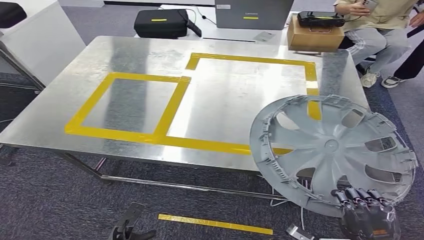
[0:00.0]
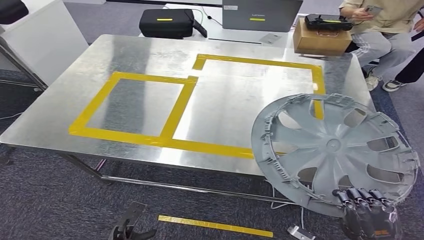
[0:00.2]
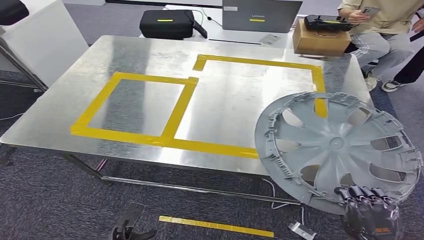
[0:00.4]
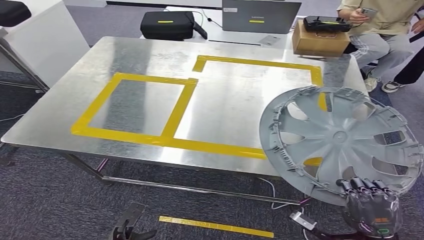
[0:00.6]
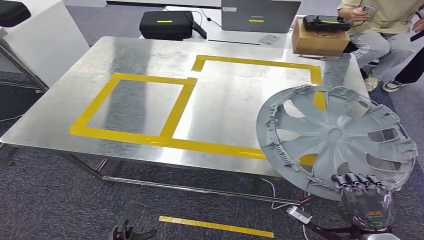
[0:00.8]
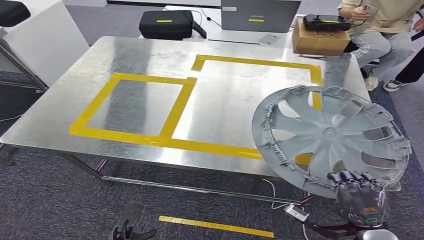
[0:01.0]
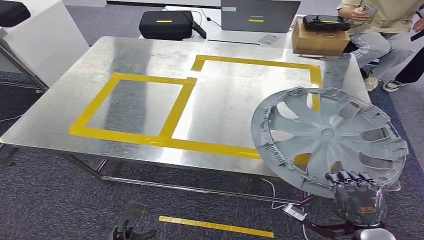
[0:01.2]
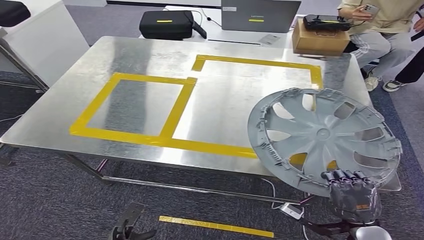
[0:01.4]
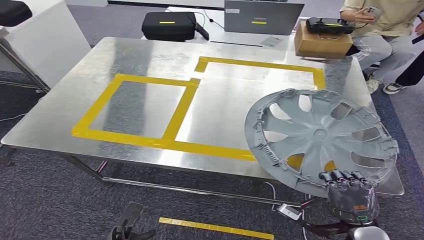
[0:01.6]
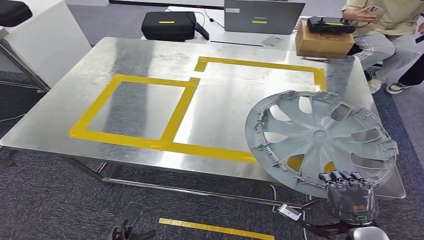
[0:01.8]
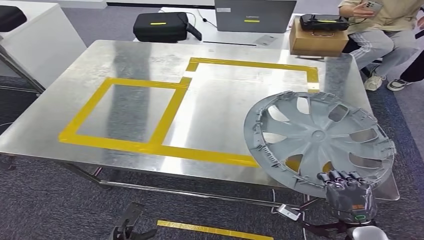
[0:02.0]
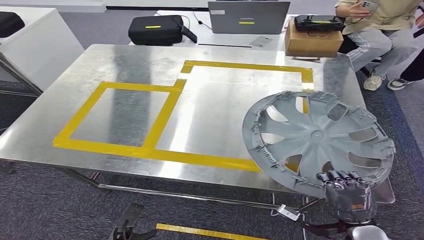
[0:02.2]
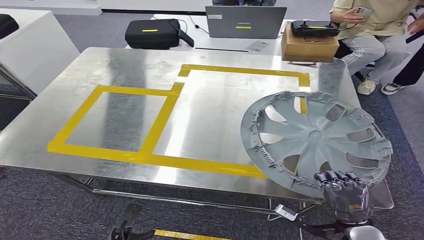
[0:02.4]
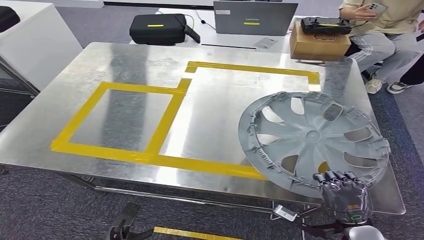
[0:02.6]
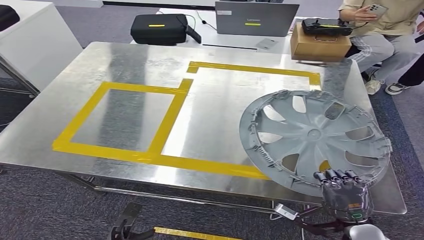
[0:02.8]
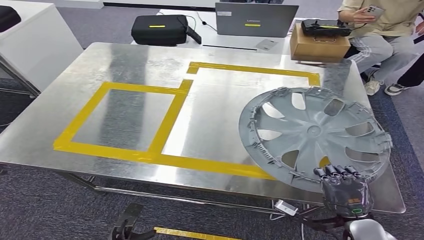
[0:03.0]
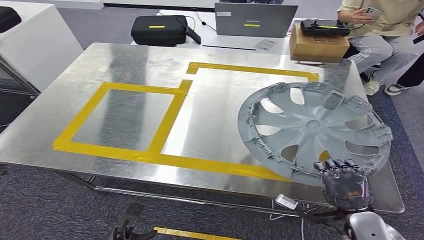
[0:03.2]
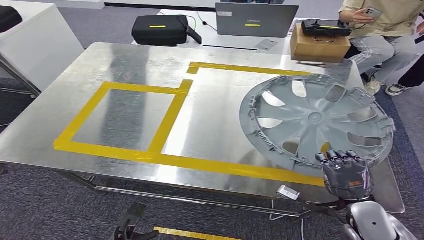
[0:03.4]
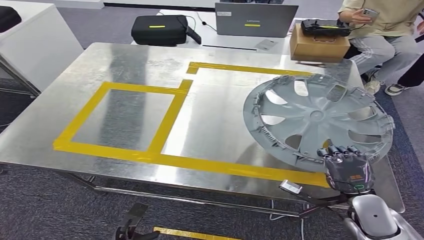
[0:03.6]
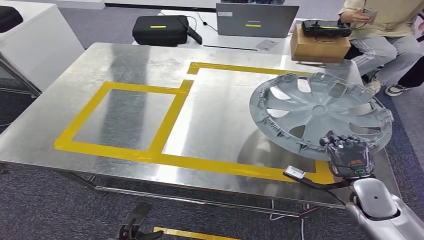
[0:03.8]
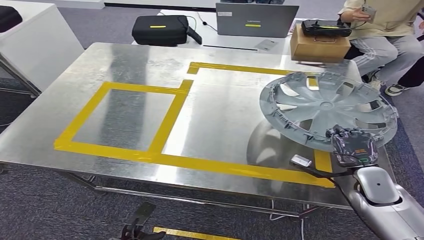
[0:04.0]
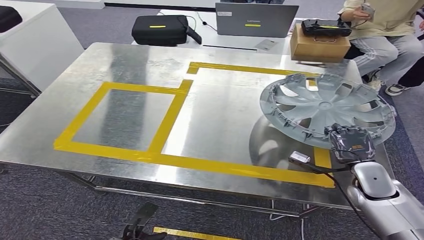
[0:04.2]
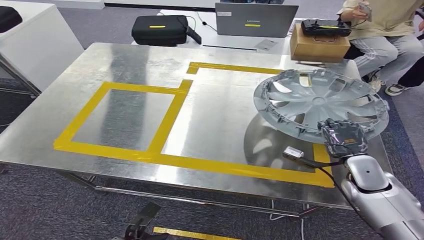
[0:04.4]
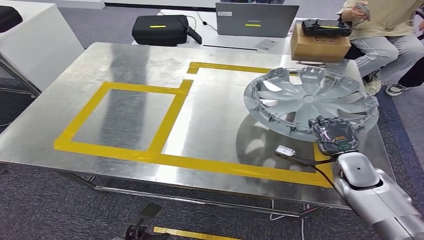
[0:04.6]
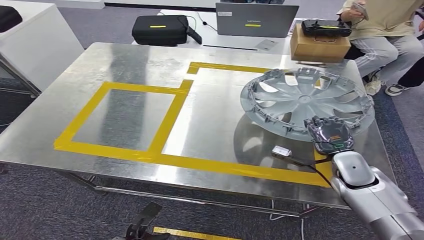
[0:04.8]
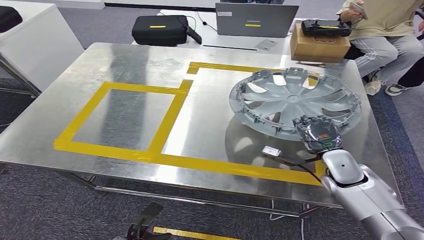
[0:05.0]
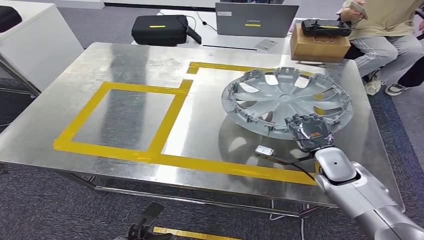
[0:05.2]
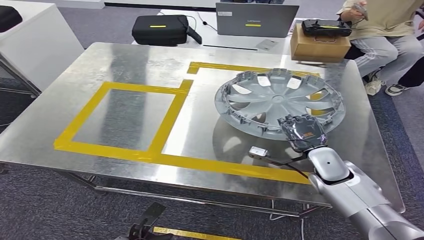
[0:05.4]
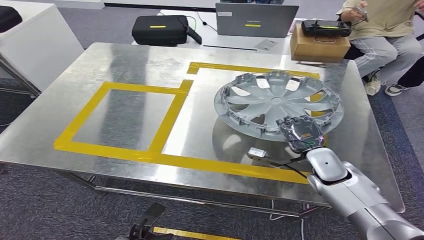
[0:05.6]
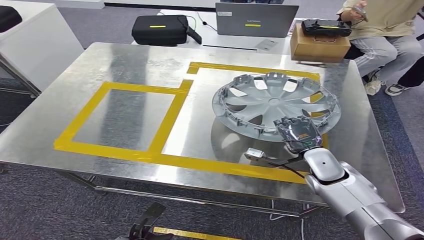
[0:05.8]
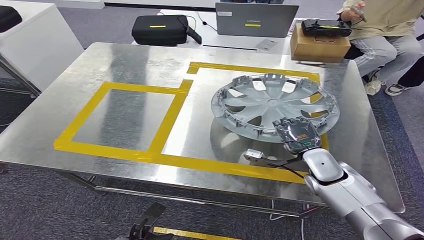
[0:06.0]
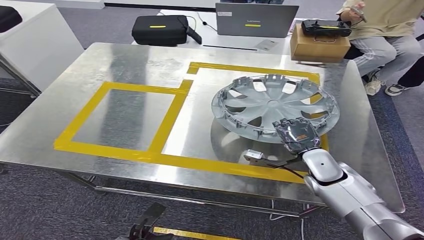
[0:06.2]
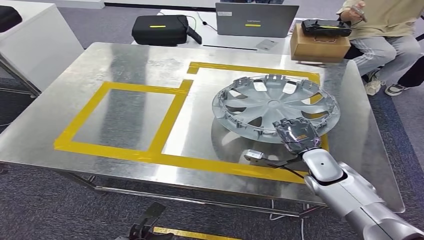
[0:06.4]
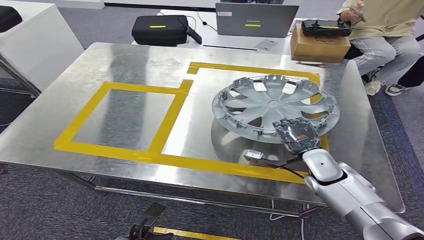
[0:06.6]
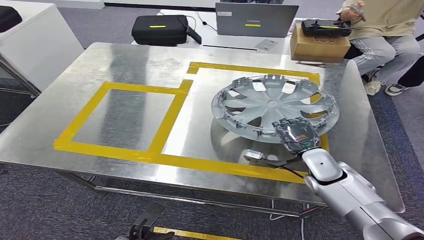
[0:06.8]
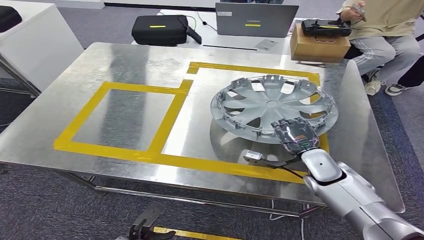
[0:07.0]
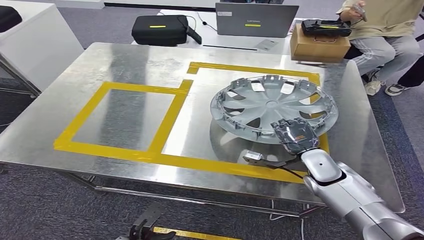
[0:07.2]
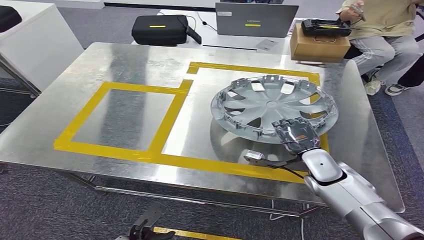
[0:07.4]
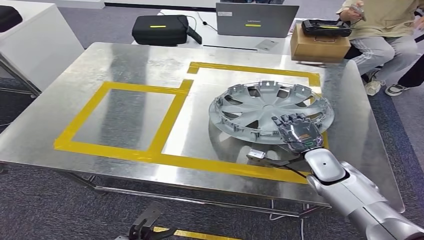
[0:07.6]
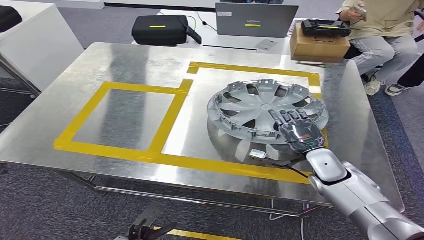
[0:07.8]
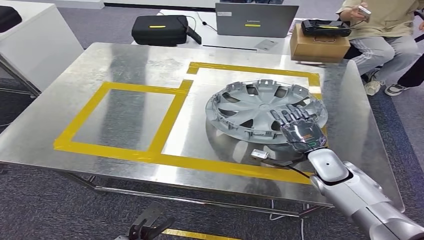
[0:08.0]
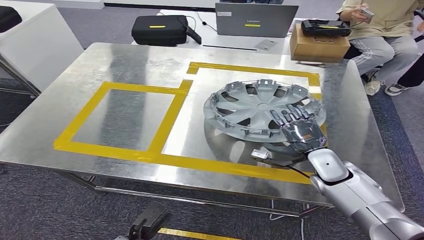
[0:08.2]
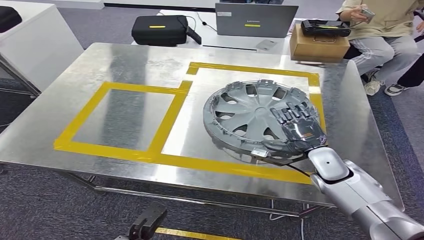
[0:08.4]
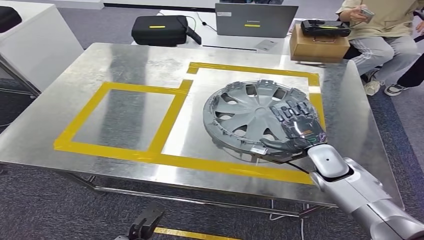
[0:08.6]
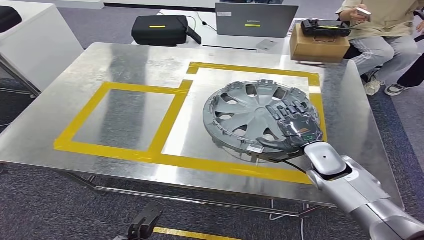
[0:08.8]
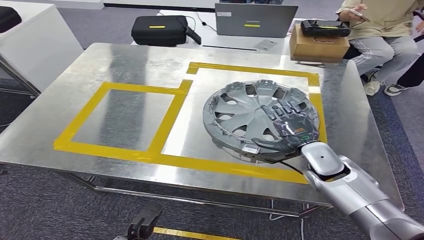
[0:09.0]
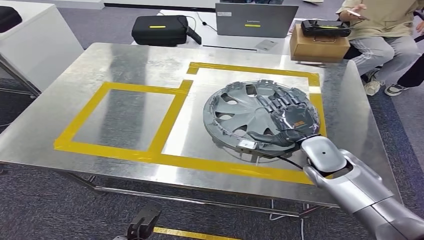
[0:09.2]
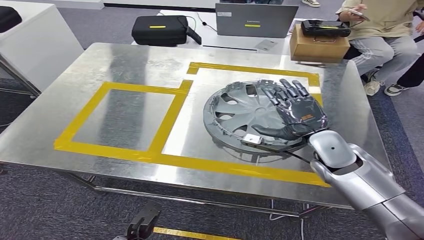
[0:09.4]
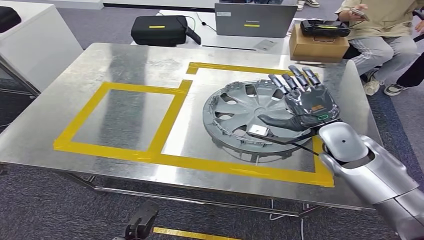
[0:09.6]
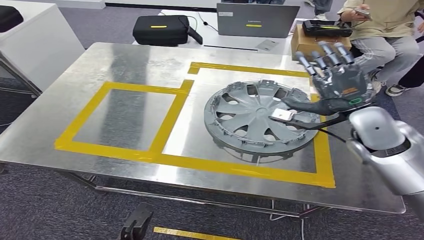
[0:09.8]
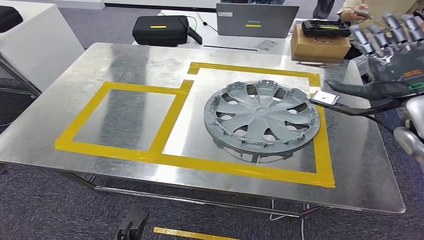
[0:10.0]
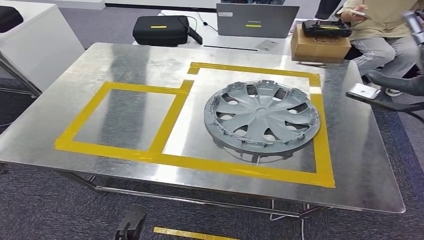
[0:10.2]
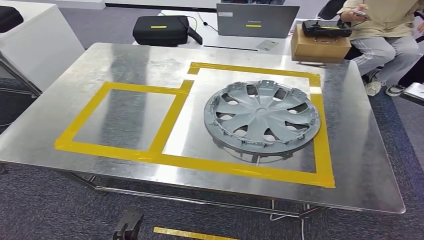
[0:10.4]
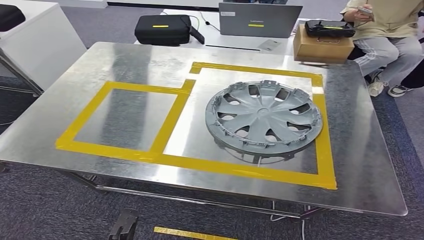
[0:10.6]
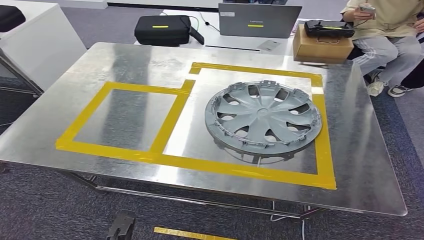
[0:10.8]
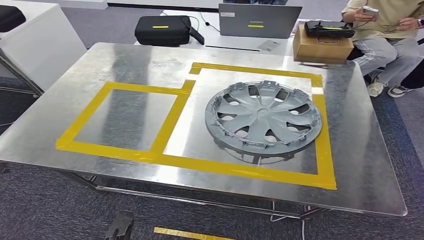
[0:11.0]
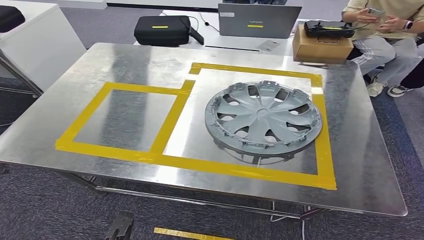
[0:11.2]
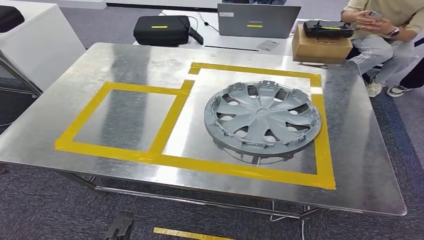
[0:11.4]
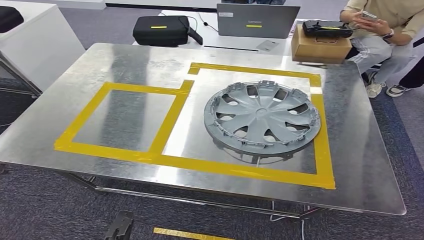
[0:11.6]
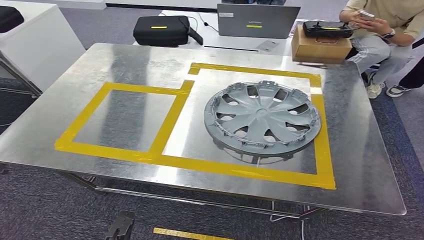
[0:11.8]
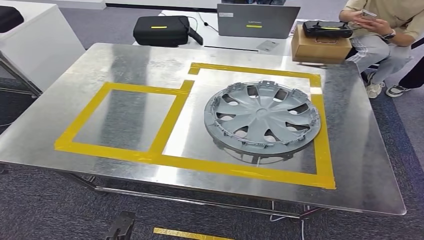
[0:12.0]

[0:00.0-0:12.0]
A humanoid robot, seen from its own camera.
Step, 0.0 to 8.4 s: Insert the small component into the corresponding slot on the workbench.
3.0 to 4.4 s: The right hand travels forward by some 15 cm.
4.4 to 6.0 s: The right hand heads to the left, covering approximately 10 cm.
6.0 to 9.0 s: There are only small adjustments of the hands.
9.0 to 10.4 s: The right hand is displaced to the right and upward by about 30 cm.
10.4 to 12.0 s: The right hand heads backward, to the right and downward, covering about 50 cm.

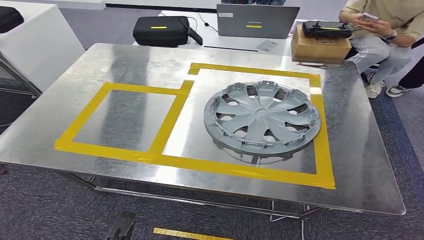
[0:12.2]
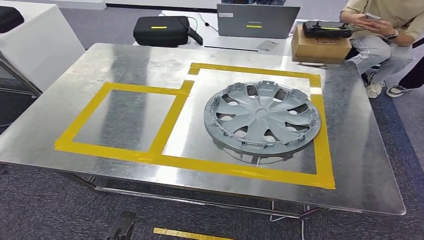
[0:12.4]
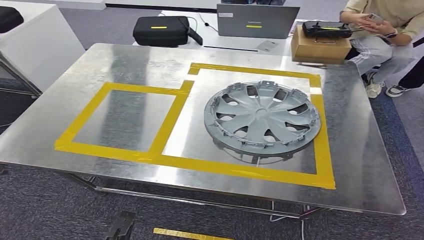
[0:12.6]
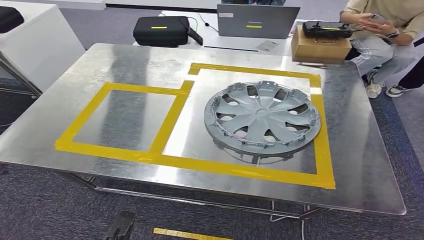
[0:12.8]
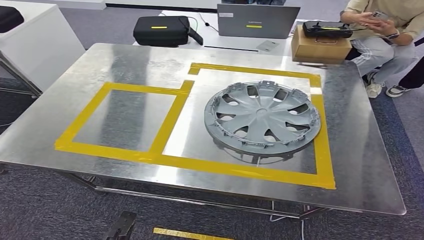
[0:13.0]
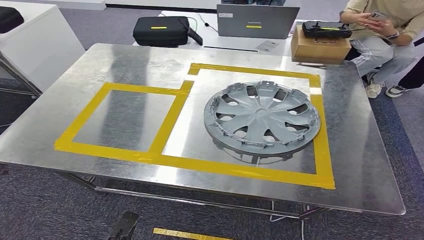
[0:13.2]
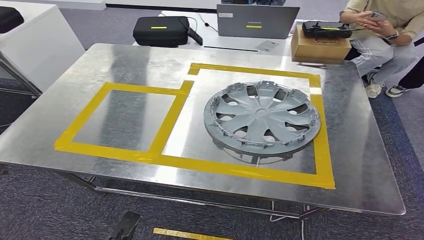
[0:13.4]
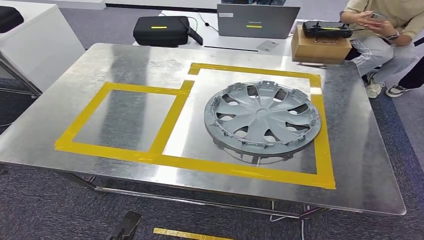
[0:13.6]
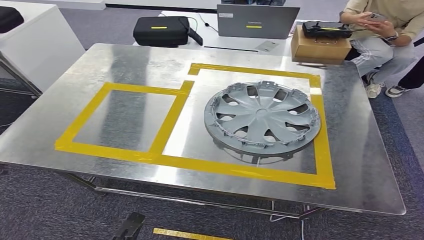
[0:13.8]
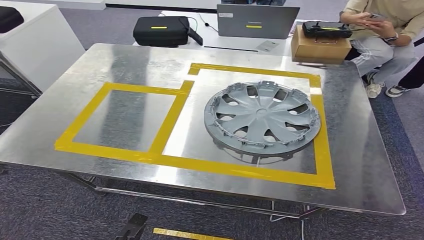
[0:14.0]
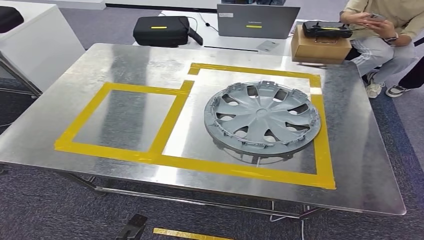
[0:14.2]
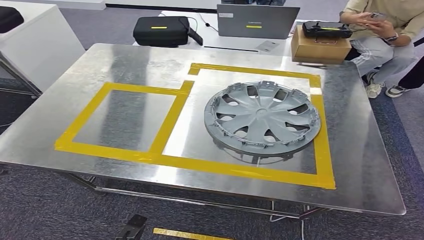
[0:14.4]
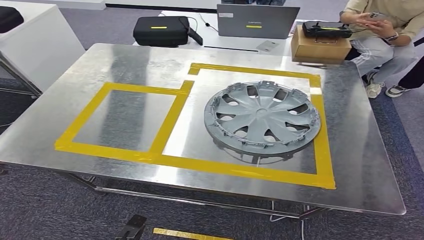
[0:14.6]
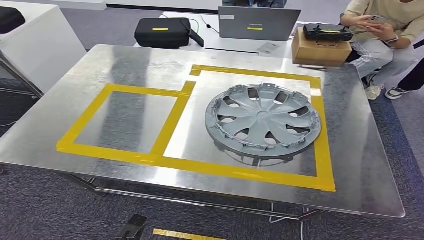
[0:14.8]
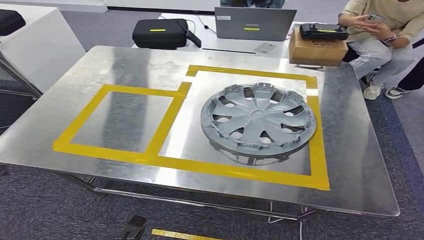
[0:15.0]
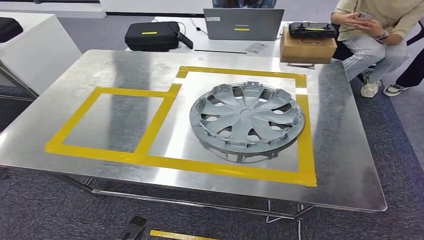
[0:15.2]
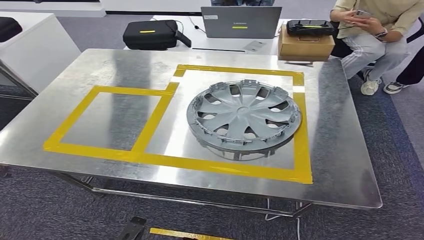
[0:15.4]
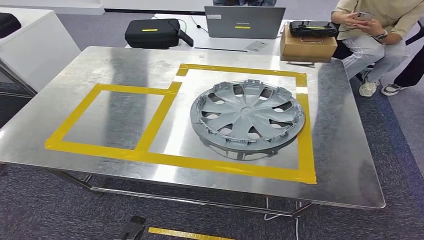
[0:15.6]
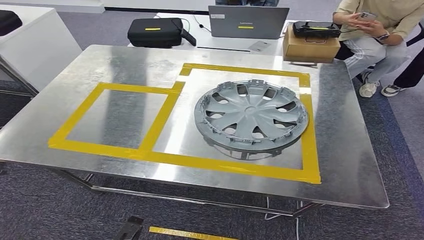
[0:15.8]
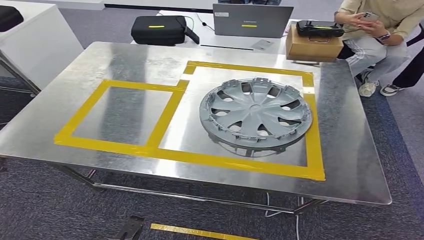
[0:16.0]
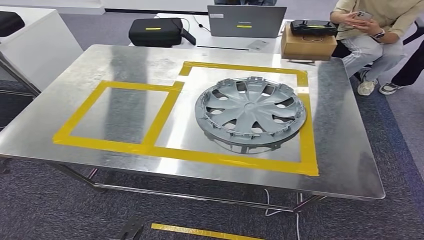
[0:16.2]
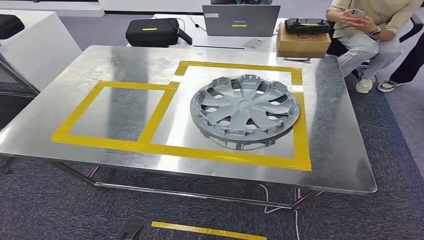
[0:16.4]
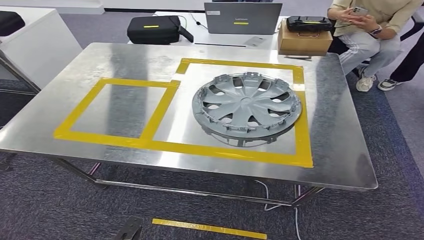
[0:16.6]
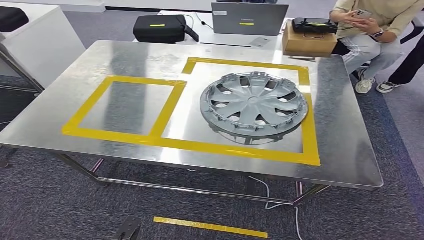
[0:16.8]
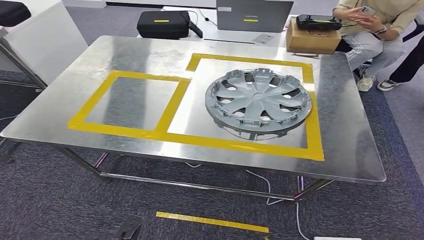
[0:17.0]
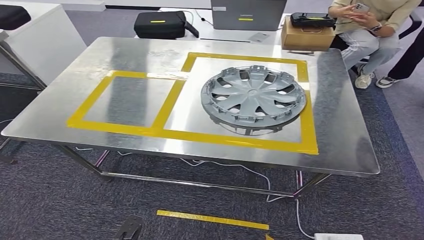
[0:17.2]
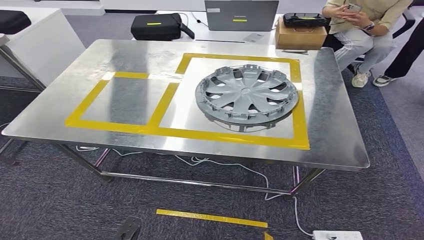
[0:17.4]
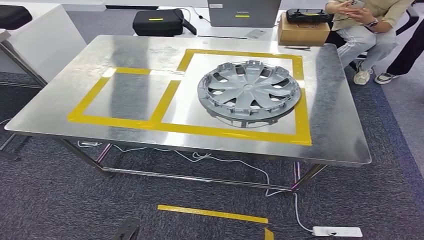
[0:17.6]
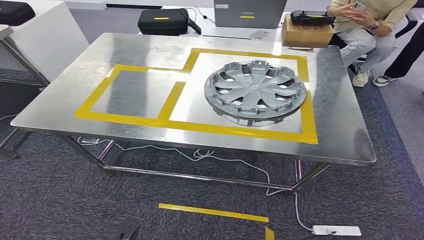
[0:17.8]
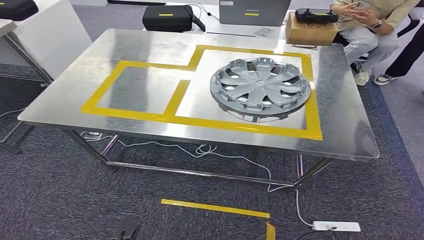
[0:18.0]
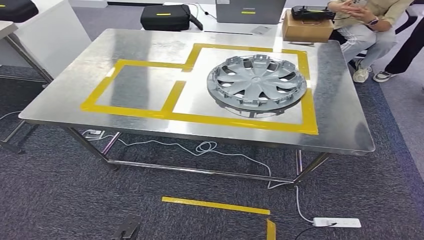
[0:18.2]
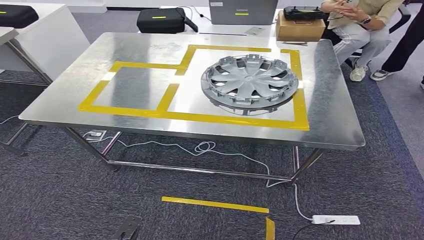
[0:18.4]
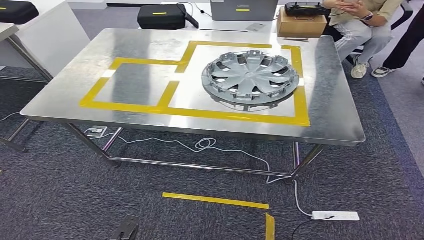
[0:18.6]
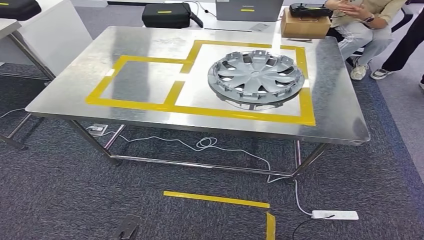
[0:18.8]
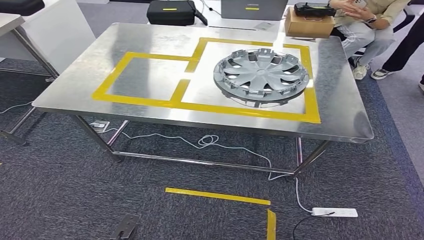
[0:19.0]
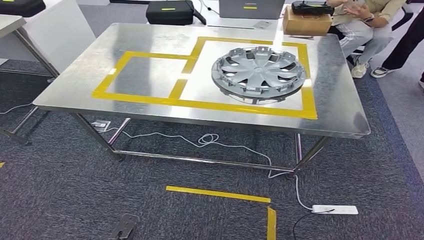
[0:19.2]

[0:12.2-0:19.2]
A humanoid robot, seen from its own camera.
12.2 to 13.6 s: The right hand shifts roughly 35 cm to the left and downward.
13.6 to 15.0 s: There are only small adjustments of the hands.
